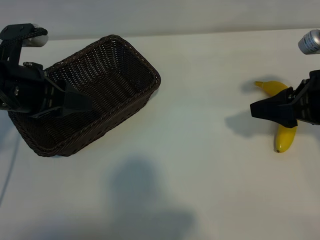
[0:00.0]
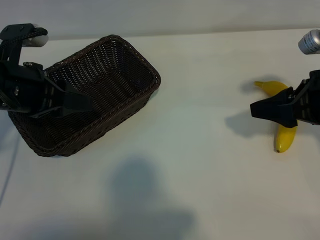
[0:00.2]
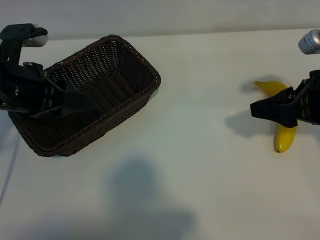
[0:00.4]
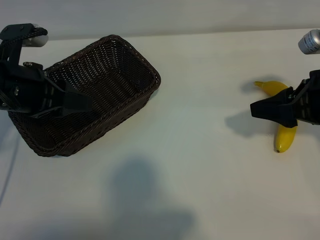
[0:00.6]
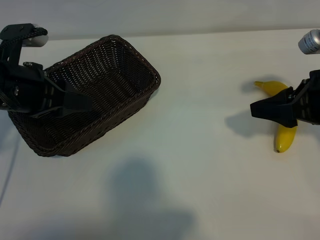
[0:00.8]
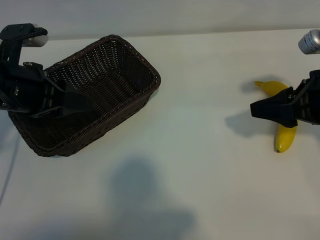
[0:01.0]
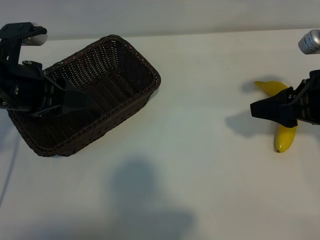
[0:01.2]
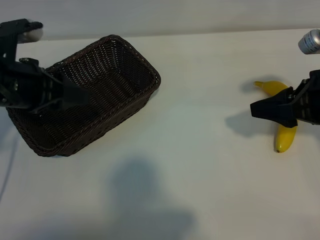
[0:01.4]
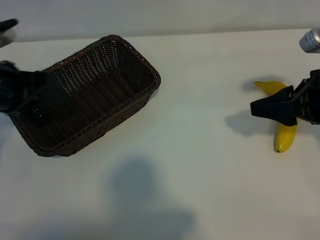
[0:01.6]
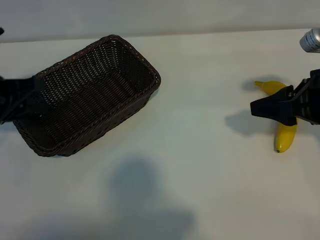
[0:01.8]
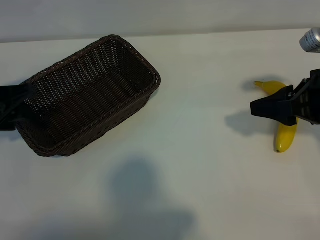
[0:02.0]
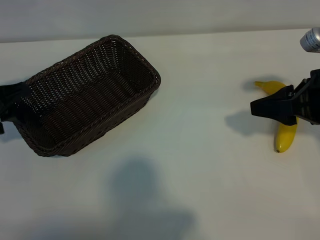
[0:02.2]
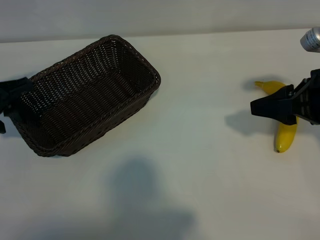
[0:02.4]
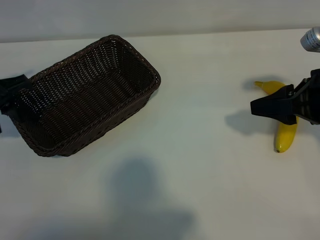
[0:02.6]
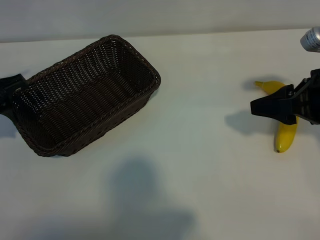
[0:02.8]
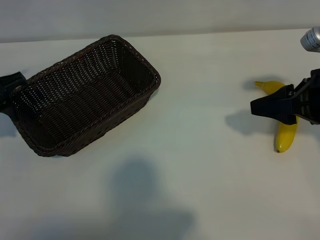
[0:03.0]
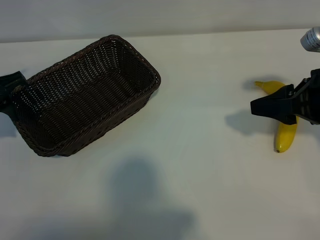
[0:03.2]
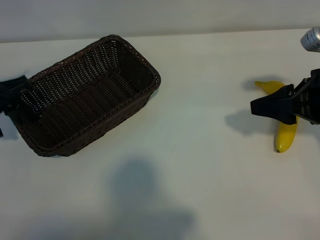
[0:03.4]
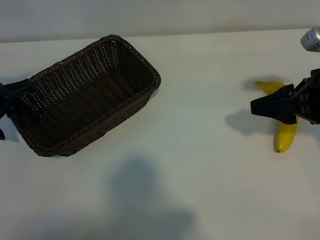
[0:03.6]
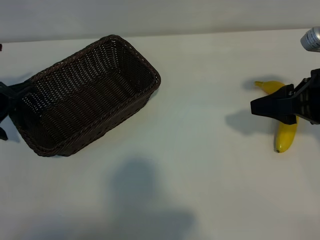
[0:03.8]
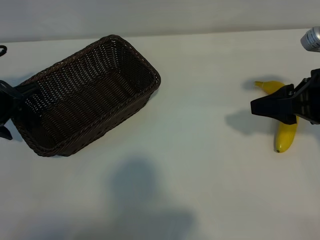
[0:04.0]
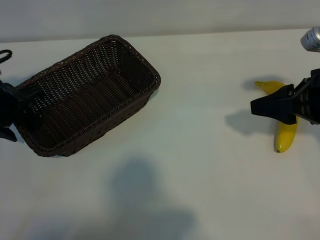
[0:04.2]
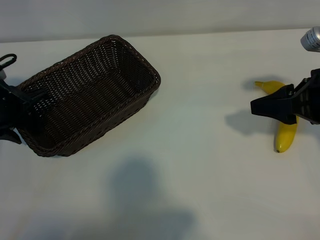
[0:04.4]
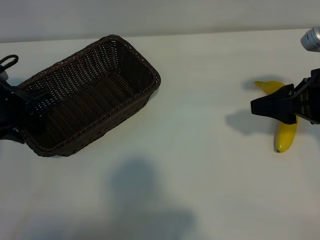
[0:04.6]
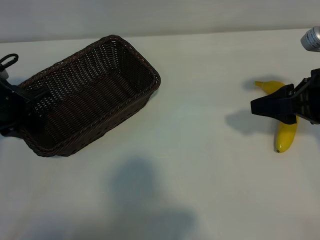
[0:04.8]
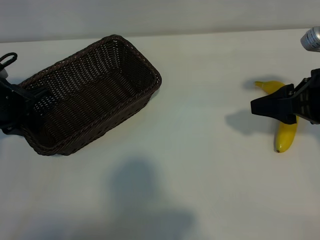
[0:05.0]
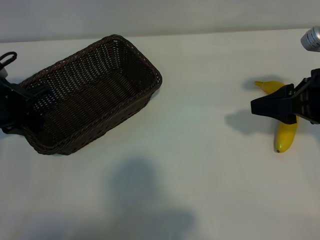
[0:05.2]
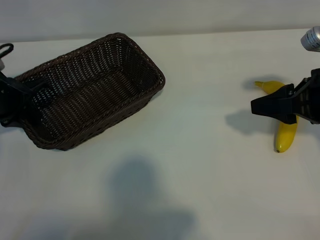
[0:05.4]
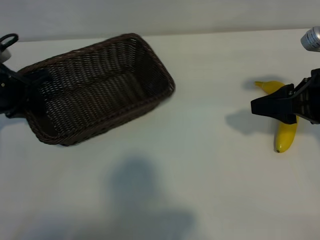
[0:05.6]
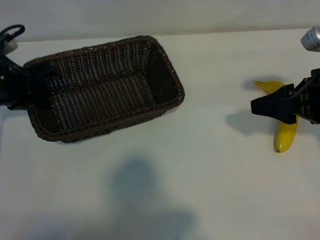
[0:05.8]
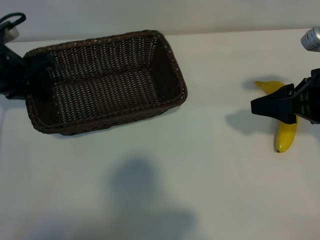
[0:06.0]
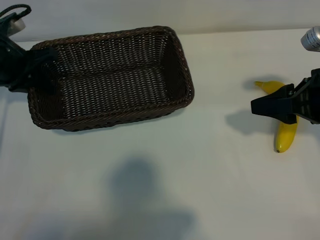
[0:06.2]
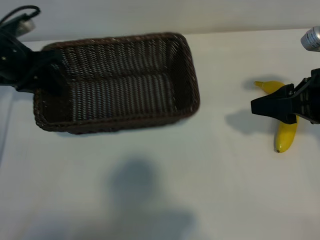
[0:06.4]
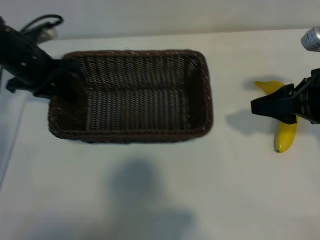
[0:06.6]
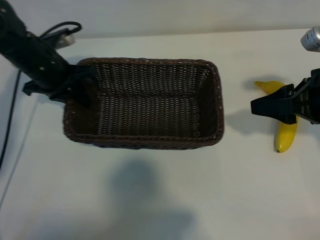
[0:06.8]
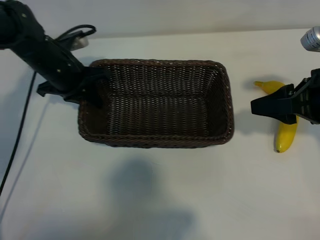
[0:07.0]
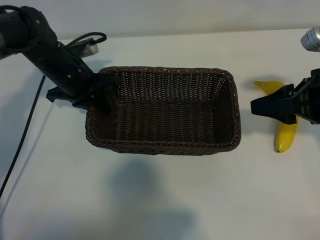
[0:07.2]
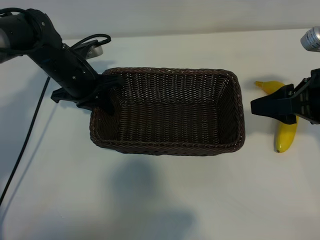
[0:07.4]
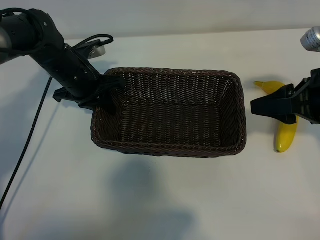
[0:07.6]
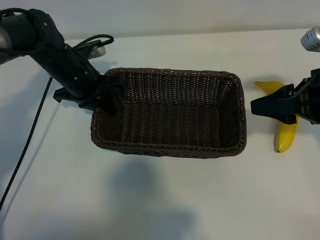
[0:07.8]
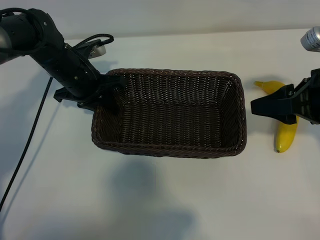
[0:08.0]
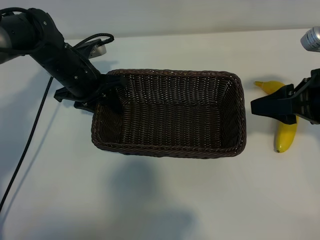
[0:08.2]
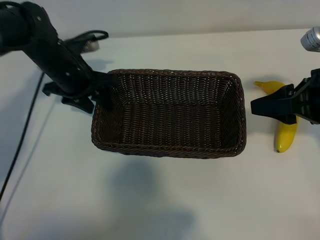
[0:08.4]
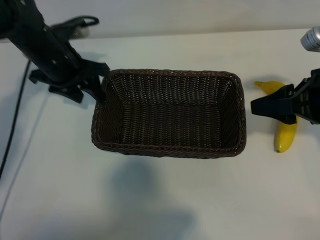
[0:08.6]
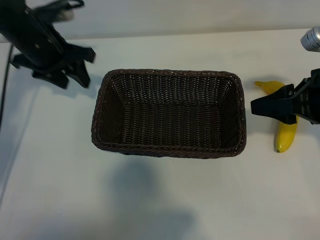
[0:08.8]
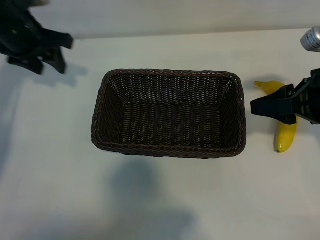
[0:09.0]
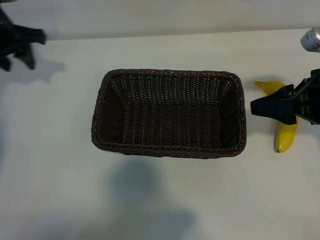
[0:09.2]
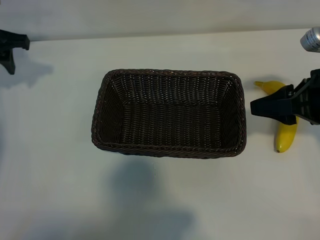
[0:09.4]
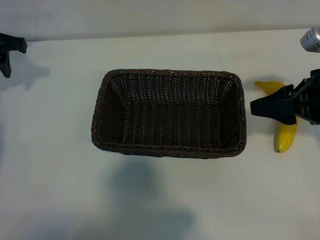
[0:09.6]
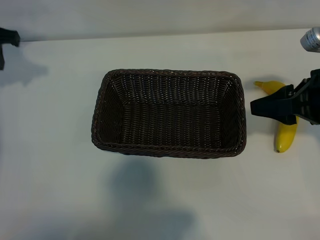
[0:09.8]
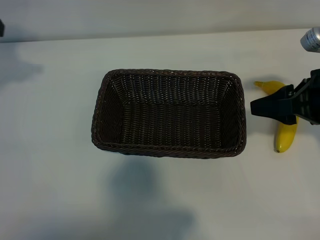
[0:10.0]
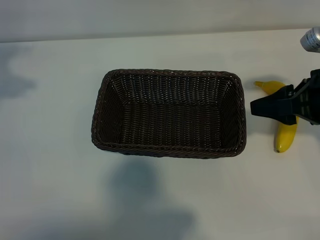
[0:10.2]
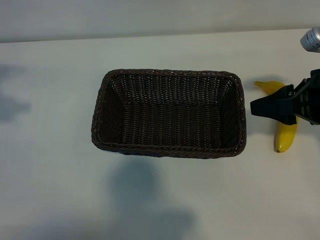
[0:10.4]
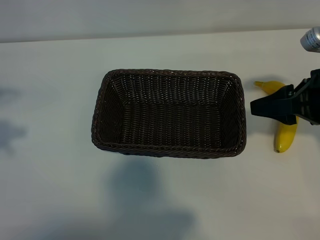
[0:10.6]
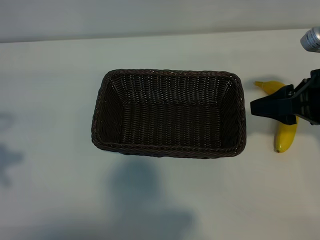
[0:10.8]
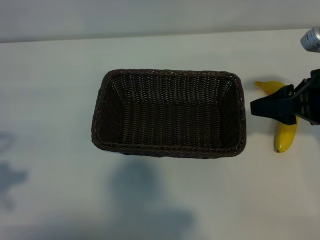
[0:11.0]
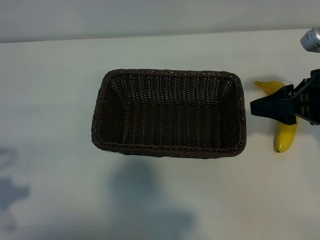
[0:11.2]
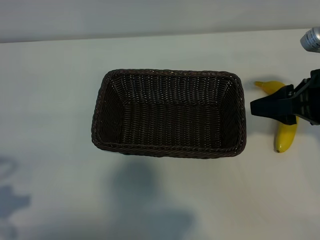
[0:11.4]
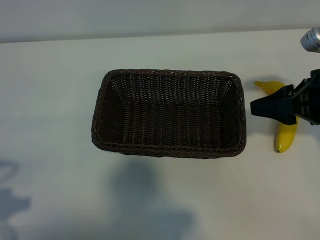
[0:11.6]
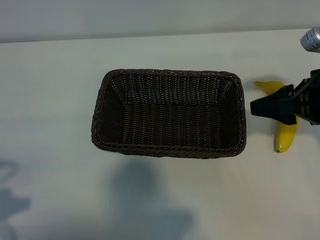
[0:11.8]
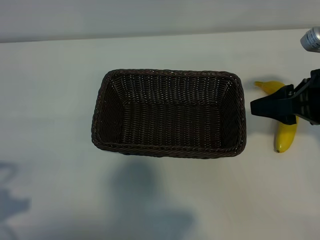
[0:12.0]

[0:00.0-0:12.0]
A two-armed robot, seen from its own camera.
Task of the whole recording: pick up the banana and put it into the basket.
Step, 0:01.2 to 0:05.6: Grasp the basket with the left gripper.
Step, 0:05.8 to 0:08.4: Place the basket in the center of the table with the left gripper.

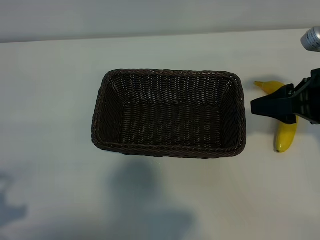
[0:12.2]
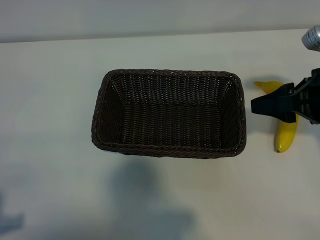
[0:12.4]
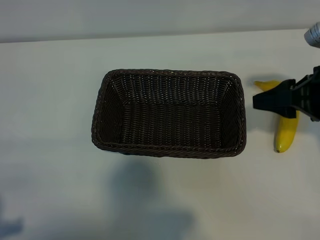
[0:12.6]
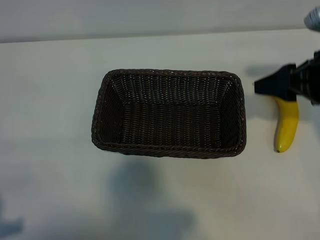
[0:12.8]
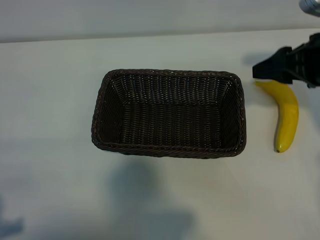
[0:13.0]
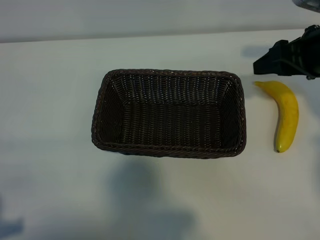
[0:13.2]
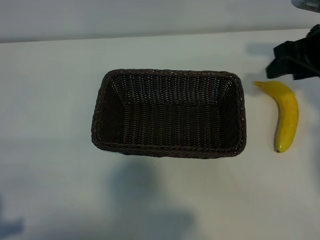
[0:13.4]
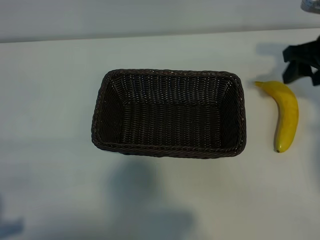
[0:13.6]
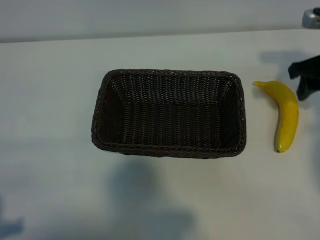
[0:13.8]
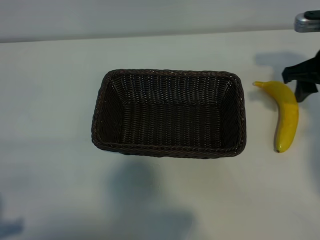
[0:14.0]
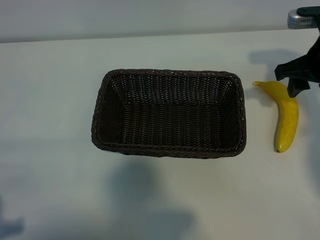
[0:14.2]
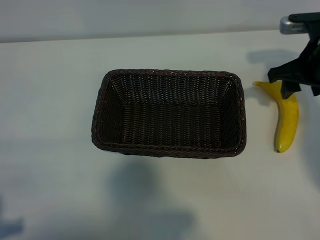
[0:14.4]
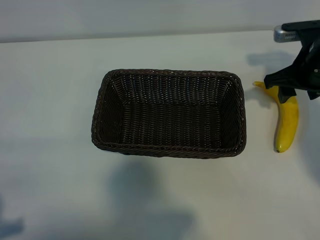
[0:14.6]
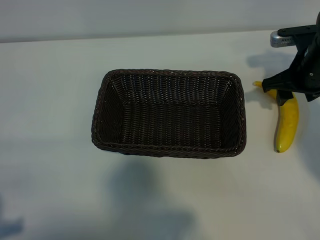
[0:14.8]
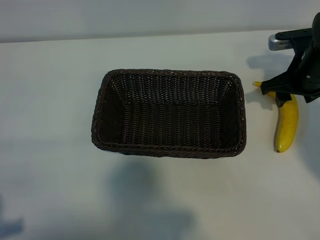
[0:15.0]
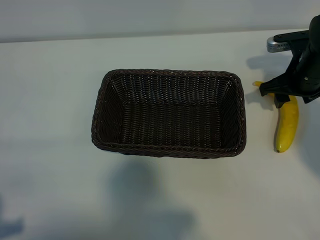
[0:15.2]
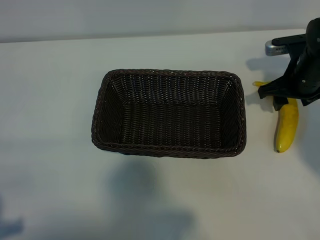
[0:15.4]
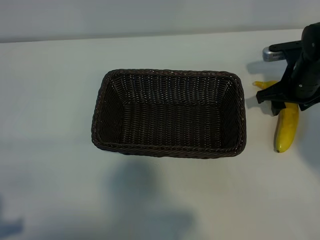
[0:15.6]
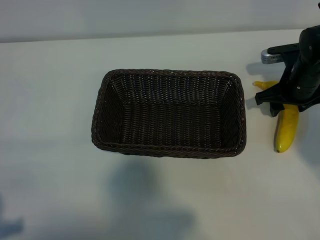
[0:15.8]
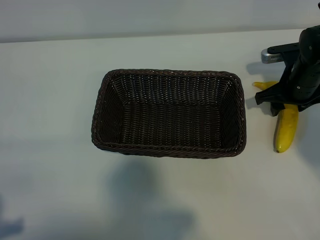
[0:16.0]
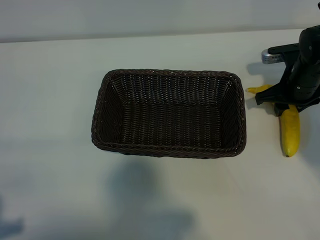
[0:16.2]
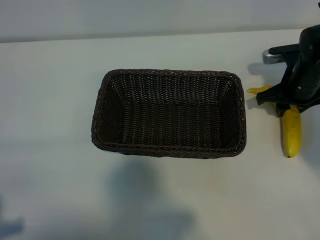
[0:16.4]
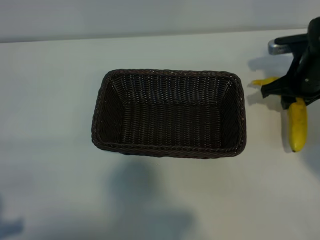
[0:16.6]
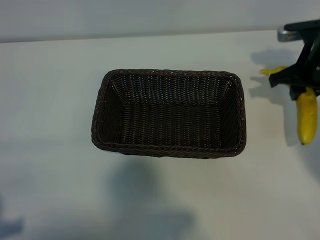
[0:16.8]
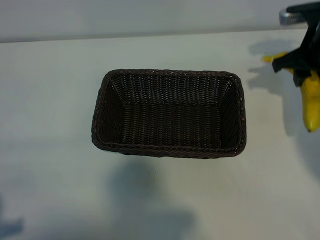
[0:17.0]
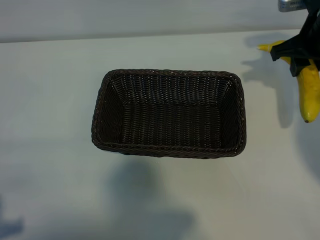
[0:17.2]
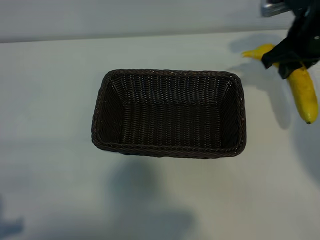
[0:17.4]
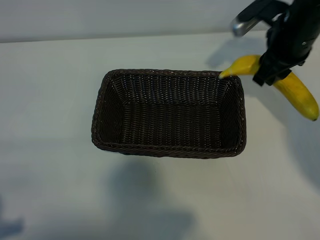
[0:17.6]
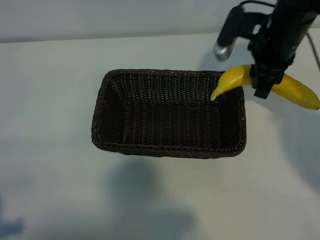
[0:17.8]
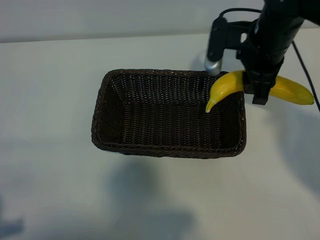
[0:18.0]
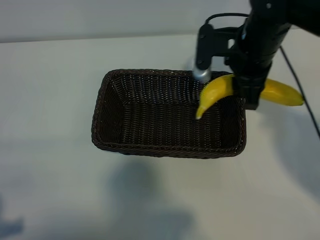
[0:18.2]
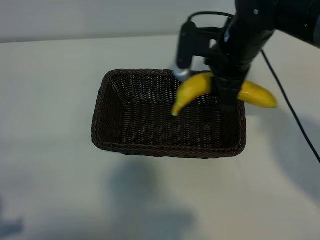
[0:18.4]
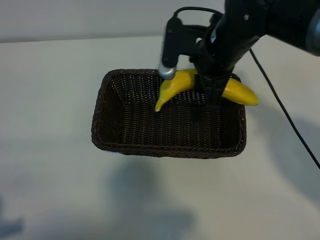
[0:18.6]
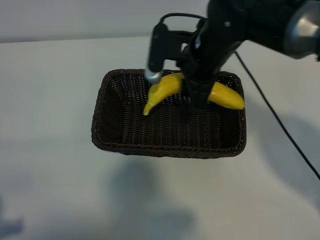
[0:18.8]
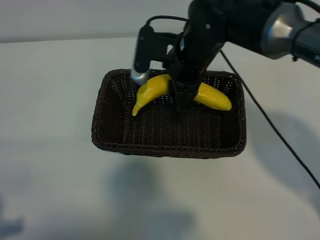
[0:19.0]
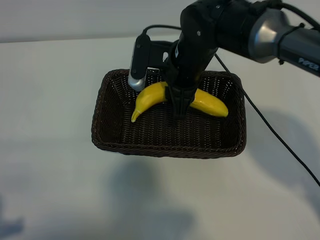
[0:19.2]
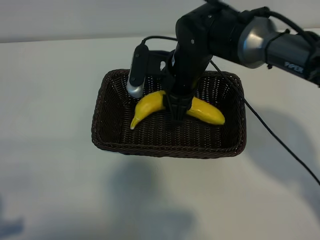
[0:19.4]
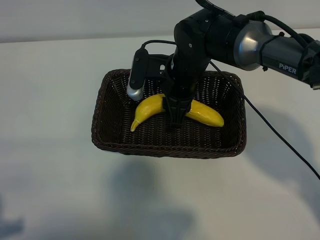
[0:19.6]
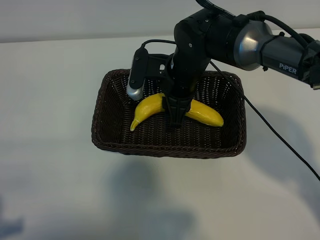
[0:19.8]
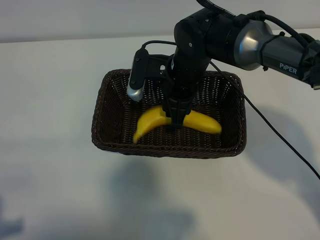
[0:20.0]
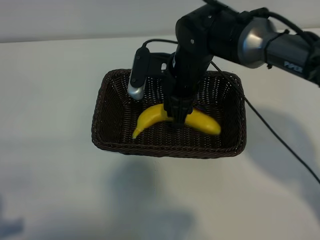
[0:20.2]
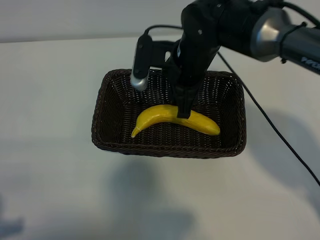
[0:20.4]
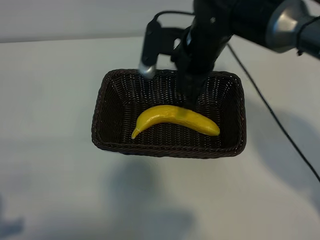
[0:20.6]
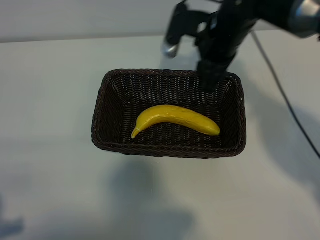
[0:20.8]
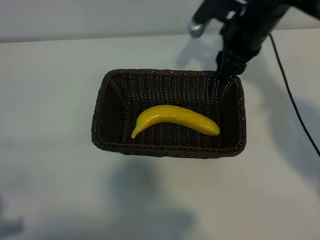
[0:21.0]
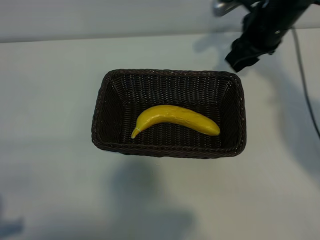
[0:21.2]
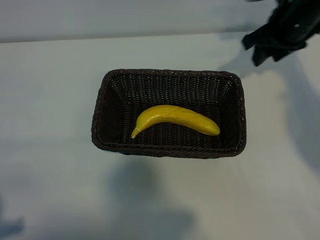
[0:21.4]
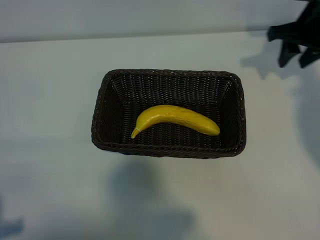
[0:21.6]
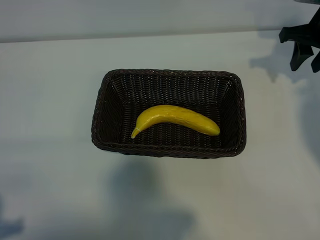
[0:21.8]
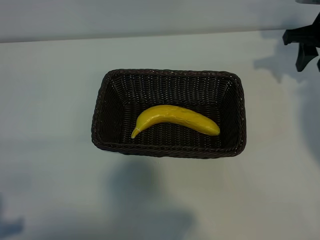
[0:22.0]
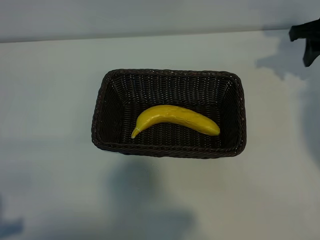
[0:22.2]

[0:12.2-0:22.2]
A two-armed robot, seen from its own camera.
Task of the whole recording: pick up the banana and put it into the basket.
Step, 0:12.2 to 0:16.0: Grasp the banana with right gripper.
Step, 0:16.2 to 0:20.4: Place the banana in the basket with right gripper.
